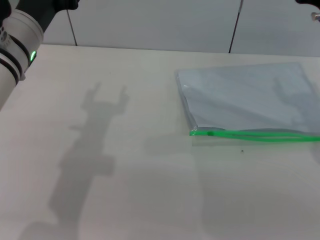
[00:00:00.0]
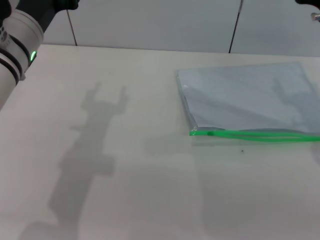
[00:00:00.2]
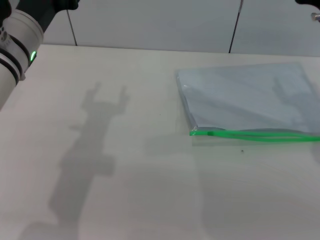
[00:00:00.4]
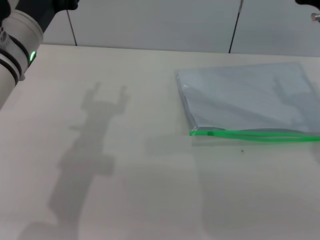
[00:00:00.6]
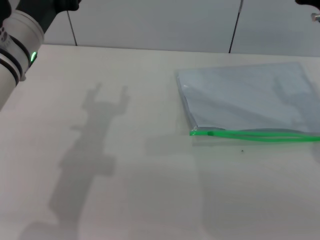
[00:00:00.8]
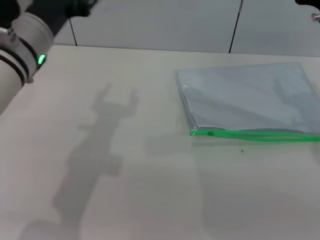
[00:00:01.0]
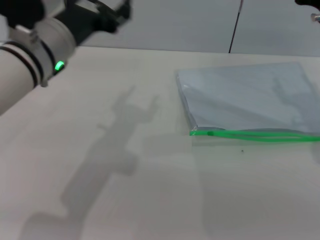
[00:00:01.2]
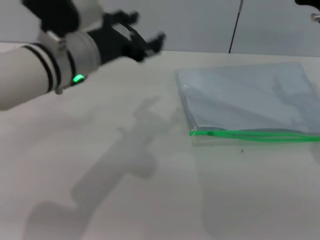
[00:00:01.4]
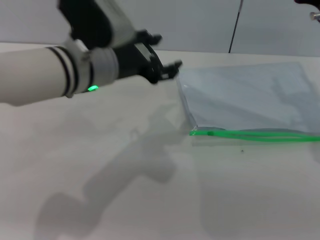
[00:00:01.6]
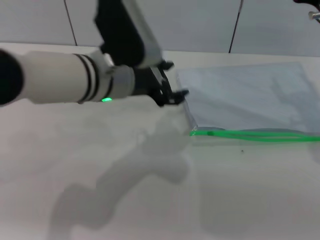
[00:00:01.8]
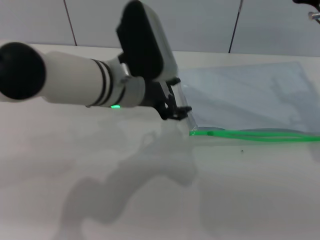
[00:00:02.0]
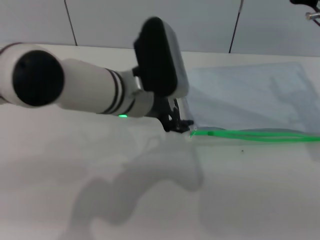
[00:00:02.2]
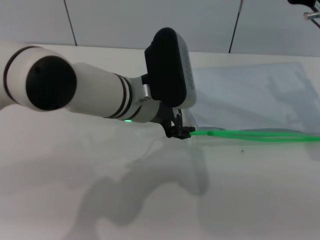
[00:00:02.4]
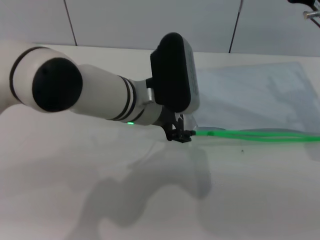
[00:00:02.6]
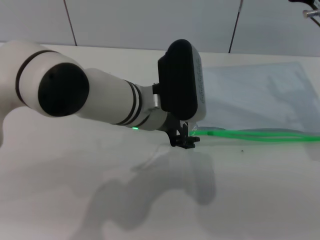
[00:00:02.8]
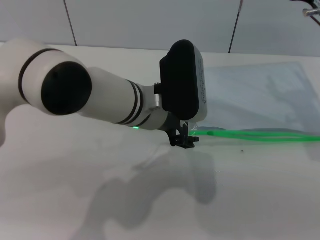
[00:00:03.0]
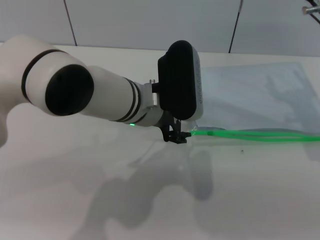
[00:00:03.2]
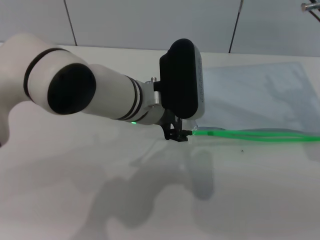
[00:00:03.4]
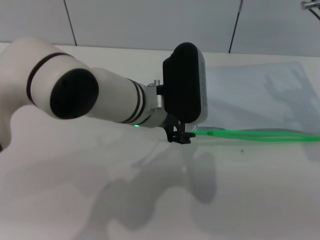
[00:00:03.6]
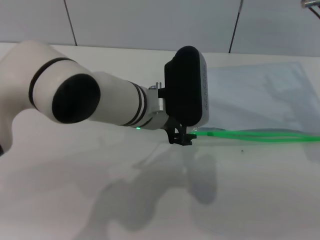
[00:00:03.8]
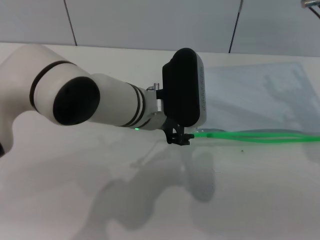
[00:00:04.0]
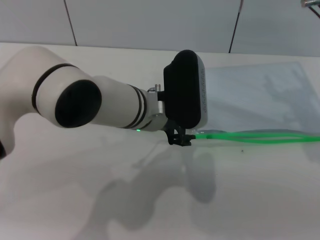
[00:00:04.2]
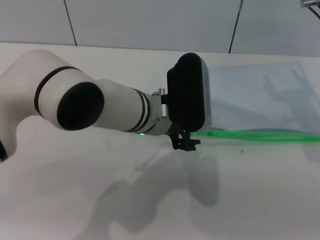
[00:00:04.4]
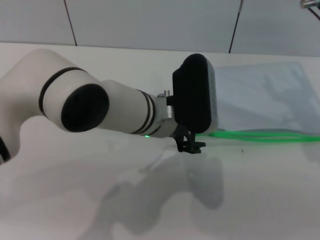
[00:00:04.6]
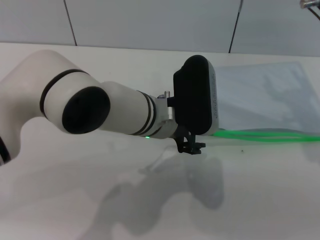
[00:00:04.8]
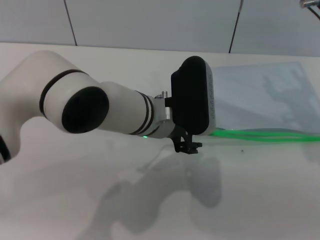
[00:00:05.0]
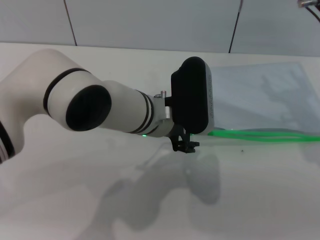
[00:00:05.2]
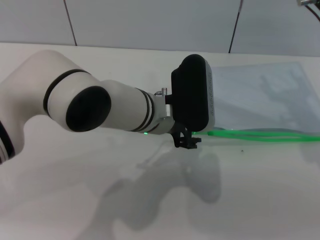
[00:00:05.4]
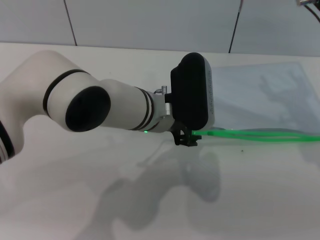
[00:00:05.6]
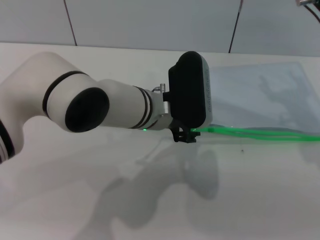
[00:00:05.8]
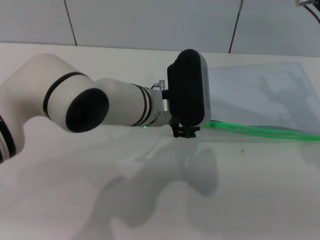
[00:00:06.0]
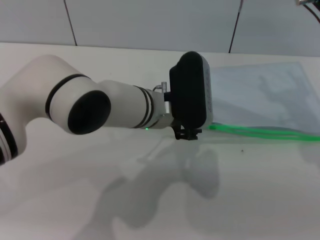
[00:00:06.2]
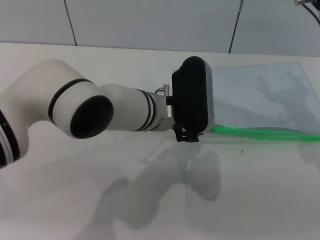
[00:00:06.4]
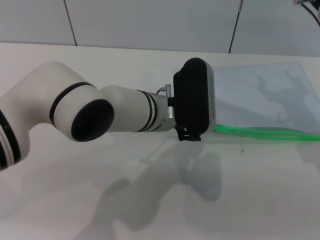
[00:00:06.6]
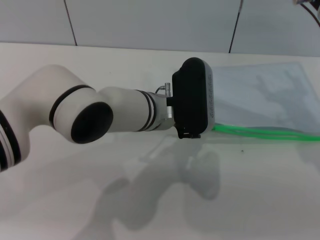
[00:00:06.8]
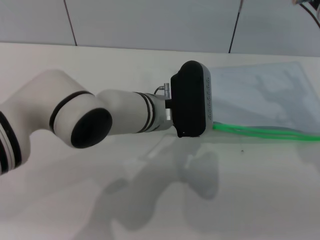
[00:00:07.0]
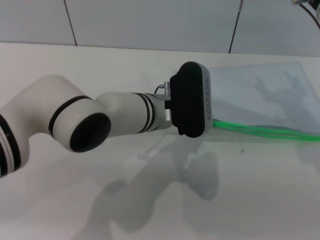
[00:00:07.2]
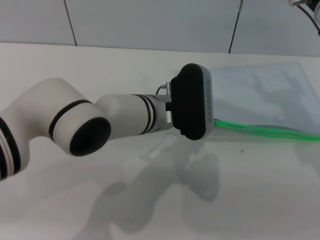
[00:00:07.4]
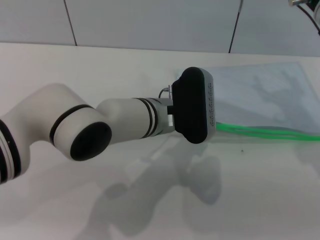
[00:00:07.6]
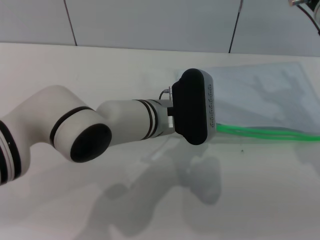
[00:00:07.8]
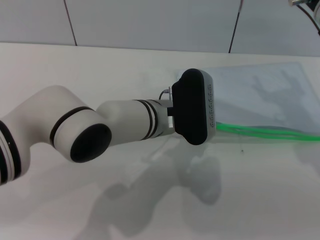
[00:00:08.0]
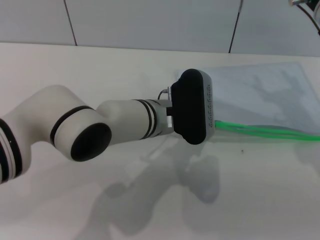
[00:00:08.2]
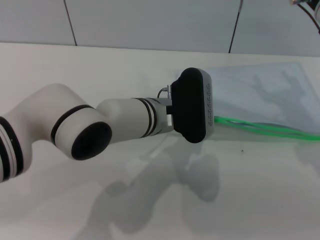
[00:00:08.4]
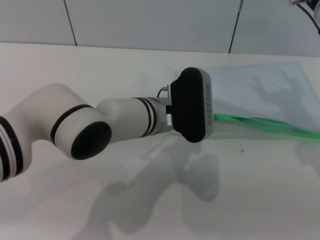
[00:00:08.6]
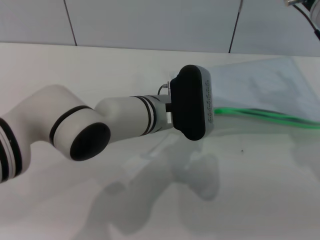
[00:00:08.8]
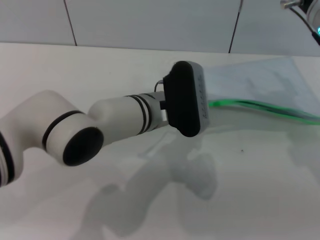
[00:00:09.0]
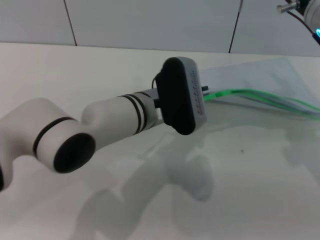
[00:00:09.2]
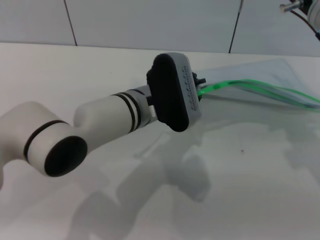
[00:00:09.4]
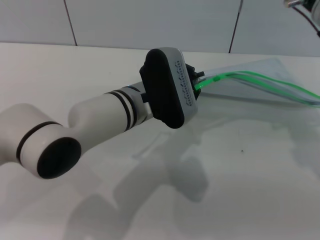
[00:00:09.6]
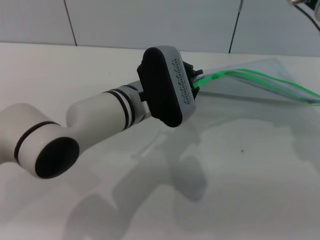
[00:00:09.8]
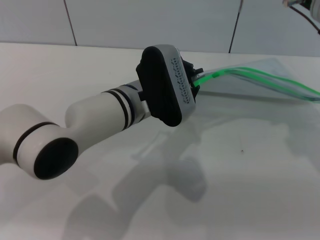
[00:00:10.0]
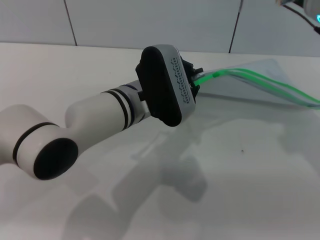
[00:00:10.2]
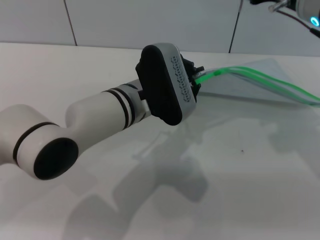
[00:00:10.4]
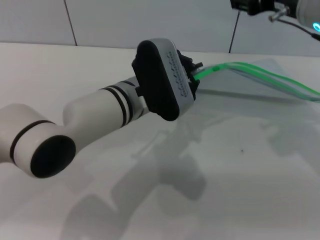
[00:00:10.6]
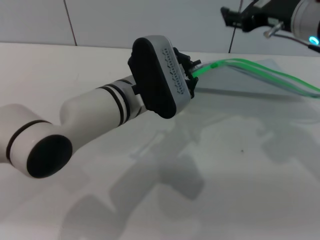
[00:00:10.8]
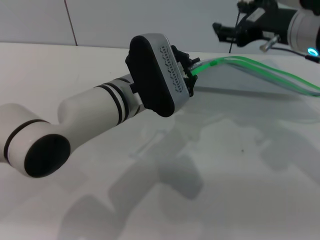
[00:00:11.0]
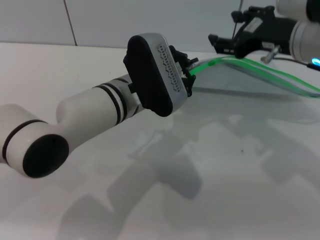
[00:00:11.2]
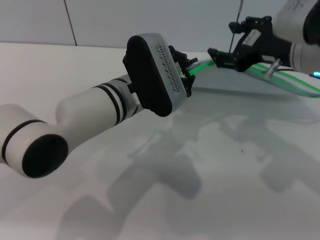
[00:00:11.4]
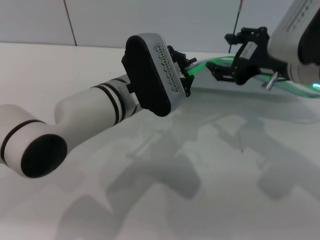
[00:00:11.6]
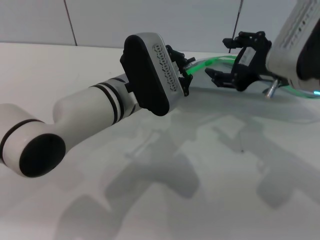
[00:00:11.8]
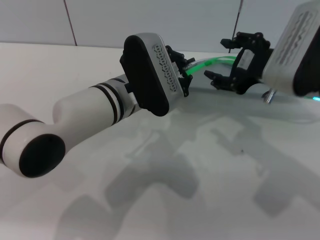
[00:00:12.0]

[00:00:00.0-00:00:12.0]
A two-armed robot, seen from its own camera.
Step, 00:00:00.0 to 00:00:10.6: Pick up the transparent plastic bag with the left gripper.
00:00:00.0 to 00:00:01.6: The left gripper goes approximately 5 cm to the right.
00:00:01.6 to 00:00:03.0: The left gripper shifts approximately 5 cm to the right.
00:00:03.0 to 00:00:07.6: The grippers stay close to where they were, moving slightly.
00:00:07.6 to 00:00:09.0: The left gripper closes.
00:00:09.0 to 00:00:10.4: The grippers stay close to where they were, moving slightly.
00:00:10.4 to 00:00:12.0: The right gripper moves backward, some 5 cm.

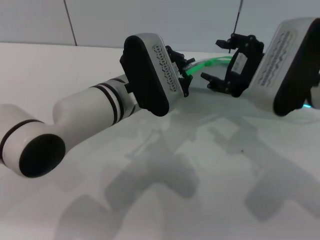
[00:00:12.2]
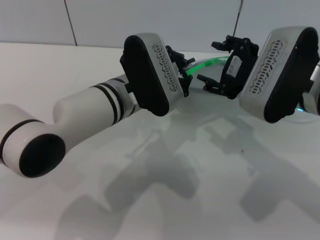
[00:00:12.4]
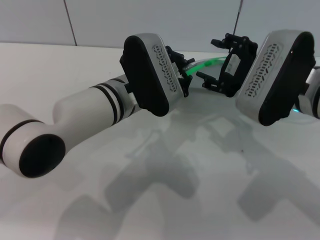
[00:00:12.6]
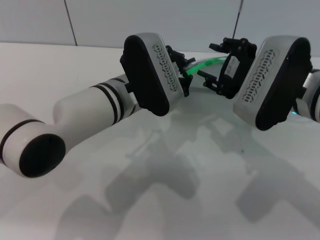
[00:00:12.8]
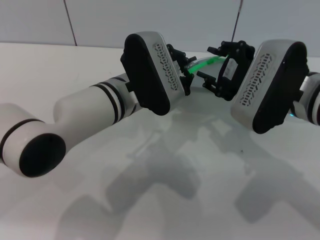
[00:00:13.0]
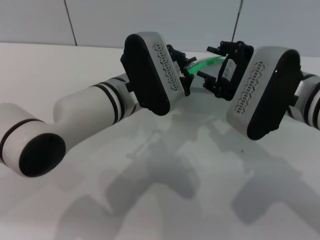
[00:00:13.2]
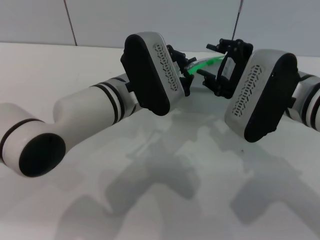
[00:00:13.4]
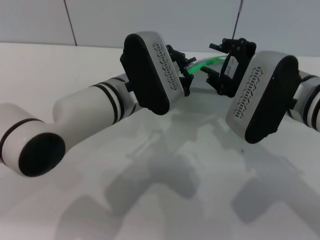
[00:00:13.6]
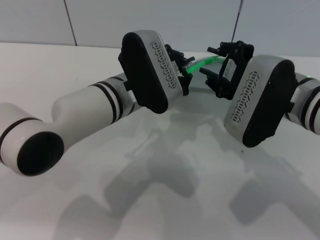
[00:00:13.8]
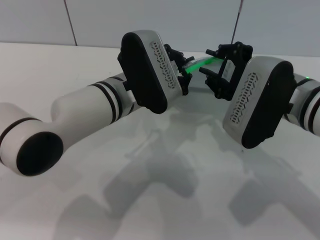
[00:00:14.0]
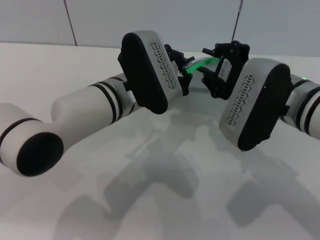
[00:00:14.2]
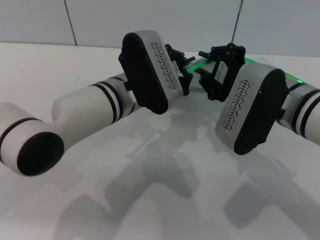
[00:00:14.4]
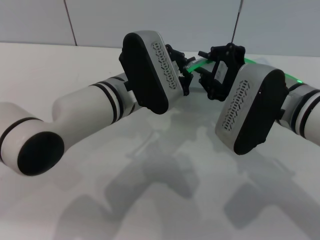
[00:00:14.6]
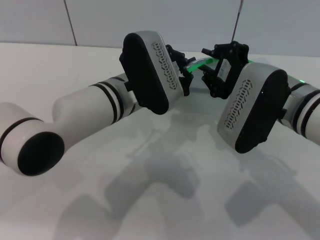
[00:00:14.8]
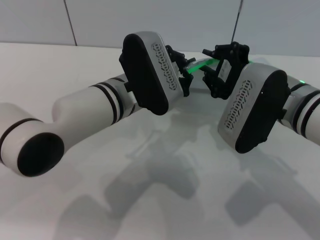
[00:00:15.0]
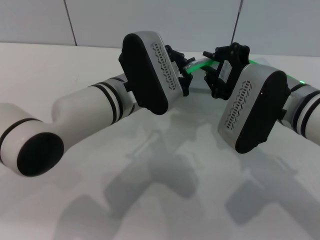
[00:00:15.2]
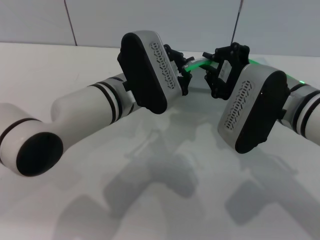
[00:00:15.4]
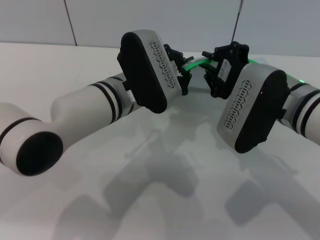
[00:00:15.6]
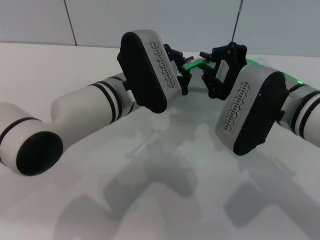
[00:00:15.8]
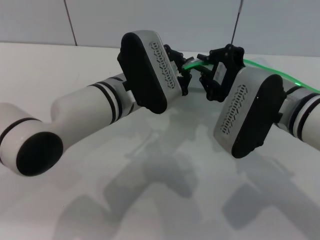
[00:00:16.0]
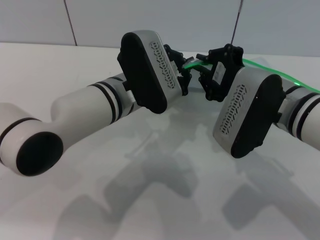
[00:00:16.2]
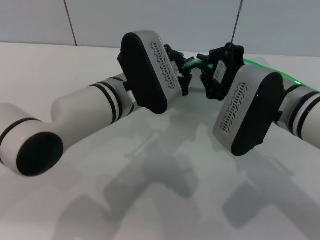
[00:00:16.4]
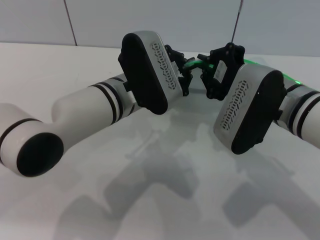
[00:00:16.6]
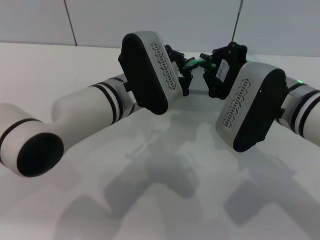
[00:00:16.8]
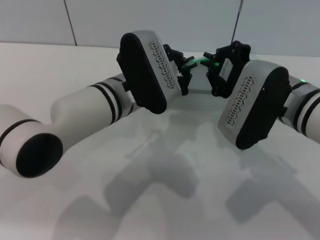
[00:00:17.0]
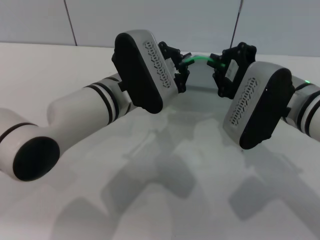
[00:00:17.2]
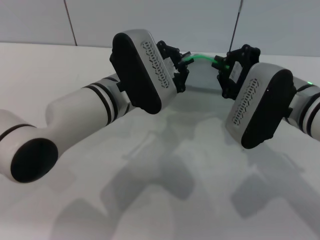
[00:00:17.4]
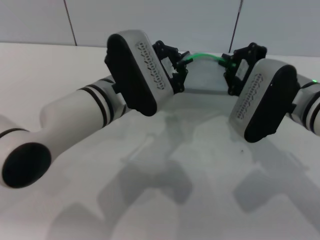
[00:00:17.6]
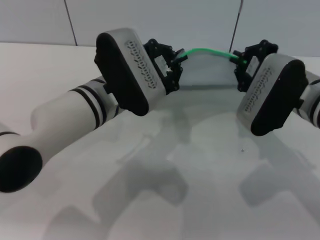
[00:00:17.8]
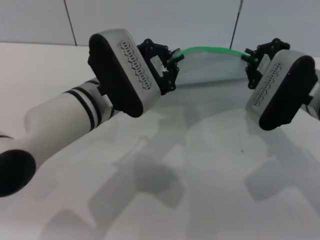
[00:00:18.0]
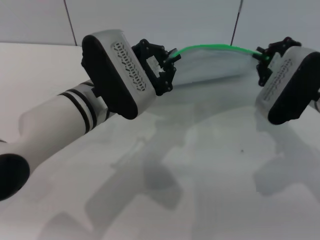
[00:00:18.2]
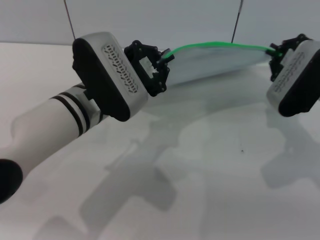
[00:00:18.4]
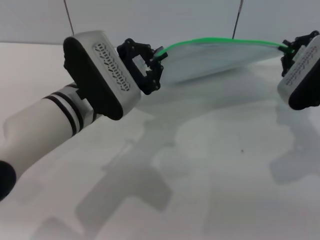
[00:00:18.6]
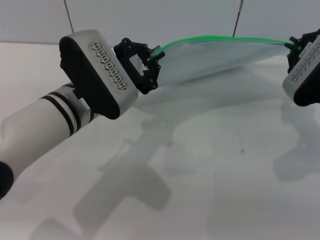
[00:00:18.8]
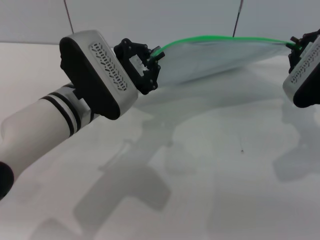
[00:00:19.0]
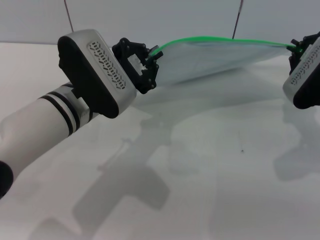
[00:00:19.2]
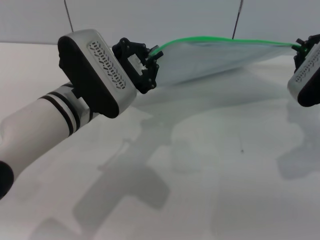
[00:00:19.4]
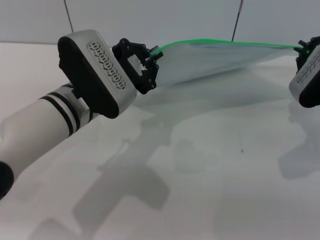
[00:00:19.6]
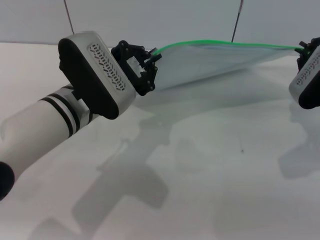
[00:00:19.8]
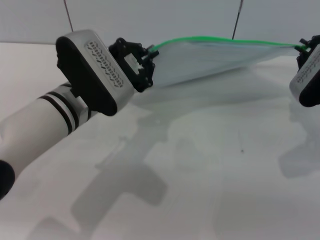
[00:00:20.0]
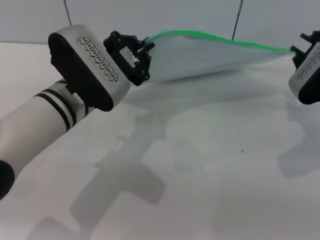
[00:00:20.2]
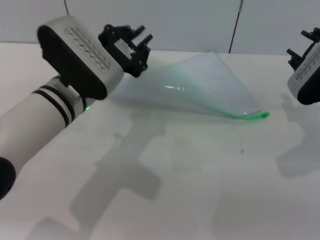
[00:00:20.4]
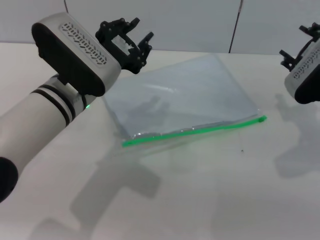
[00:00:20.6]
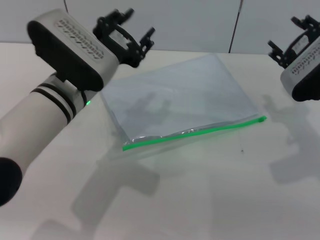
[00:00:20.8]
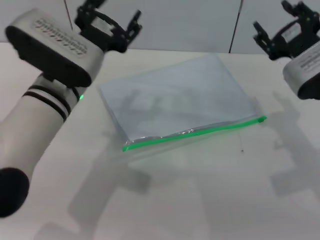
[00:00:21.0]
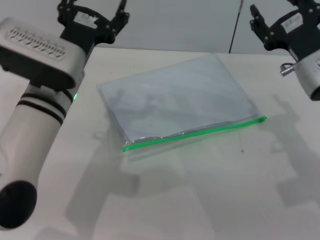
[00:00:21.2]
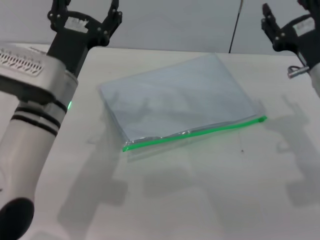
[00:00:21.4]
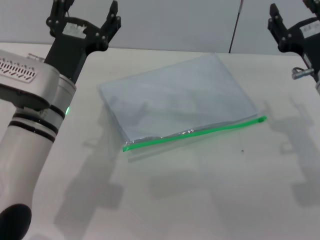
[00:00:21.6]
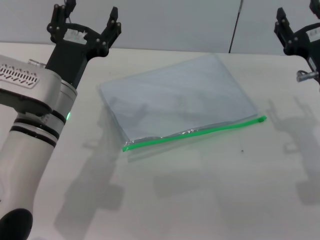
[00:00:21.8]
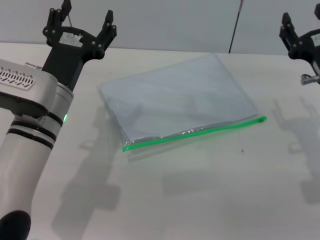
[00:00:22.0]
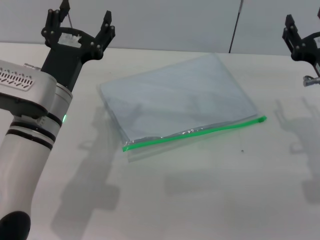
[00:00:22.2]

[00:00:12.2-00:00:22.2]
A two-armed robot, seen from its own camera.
Step, 00:00:12.2 to 00:00:20.2: Pulling up the zipper on the transparent plastic bag with the right gripper to close it.
Step, 00:00:20.4 to 00:00:21.2: Place the transparent plastic bag.
00:00:12.2 to 00:00:13.6: The right gripper closes its fingers.
00:00:13.6 to 00:00:15.0: The grippers make only small movements.
00:00:15.0 to 00:00:16.4: Neither gripper changes place.
00:00:16.4 to 00:00:18.0: The right gripper changes place by some 5 cm.
00:00:18.0 to 00:00:19.4: The right gripper moves to the right, some 5 cm.
00:00:19.4 to 00:00:20.8: The right gripper opens up.
00:00:20.8 to 00:00:22.2: The left gripper shifts by approximately 5 cm, and opens.
